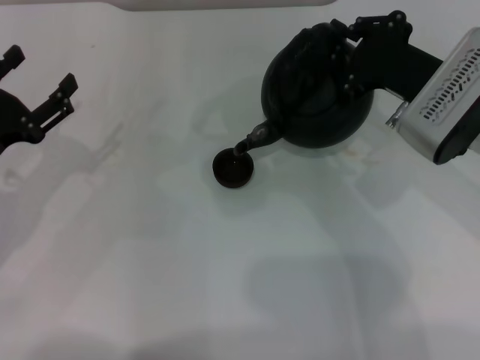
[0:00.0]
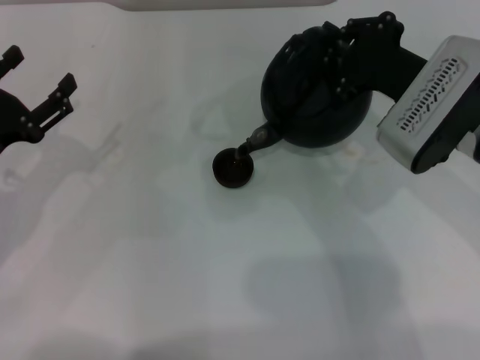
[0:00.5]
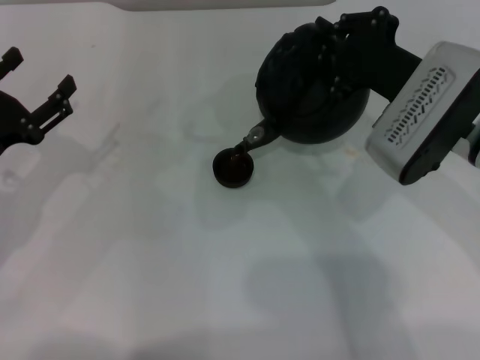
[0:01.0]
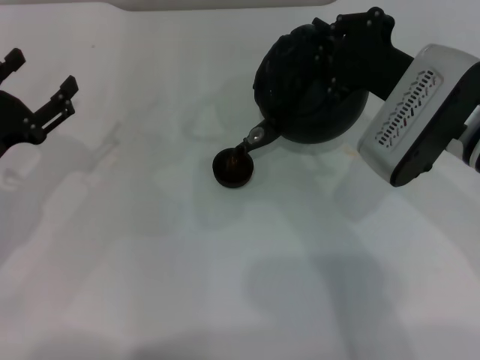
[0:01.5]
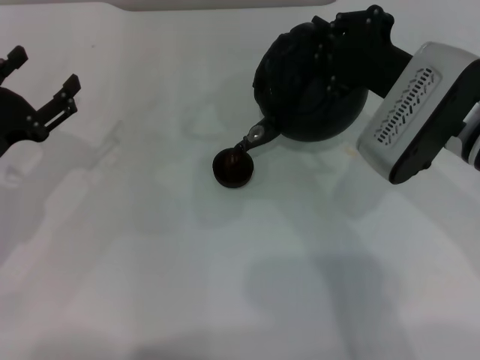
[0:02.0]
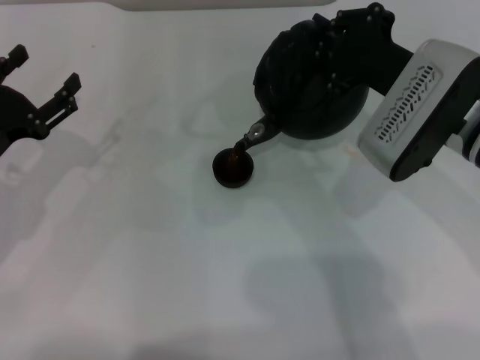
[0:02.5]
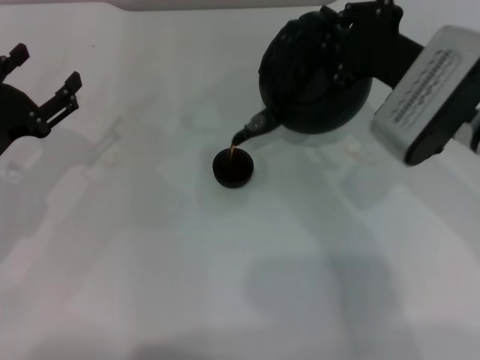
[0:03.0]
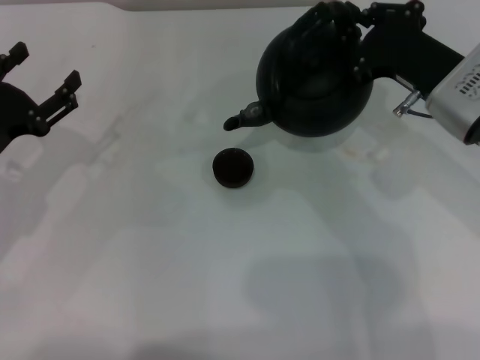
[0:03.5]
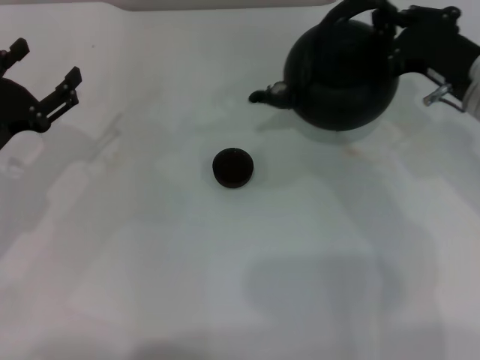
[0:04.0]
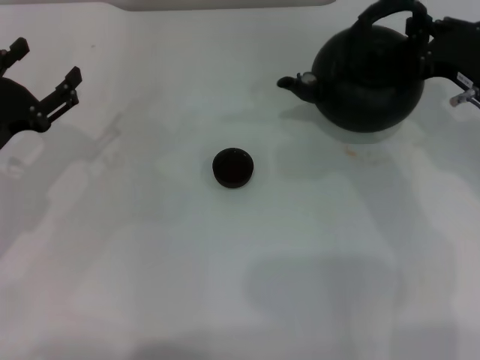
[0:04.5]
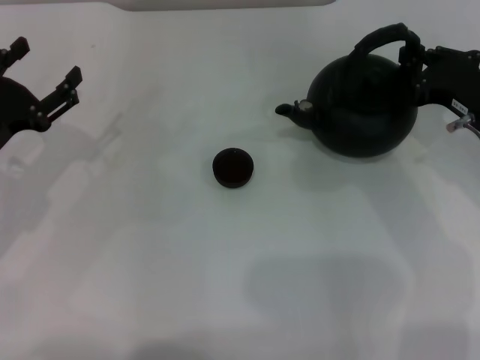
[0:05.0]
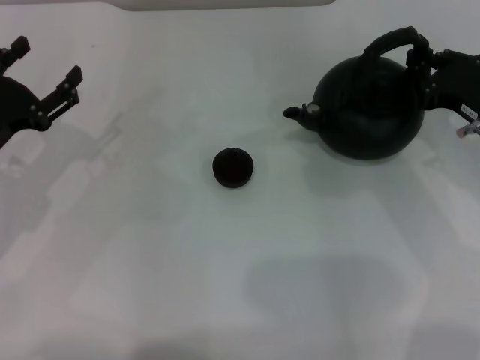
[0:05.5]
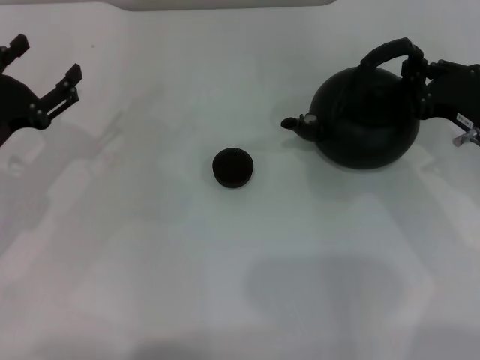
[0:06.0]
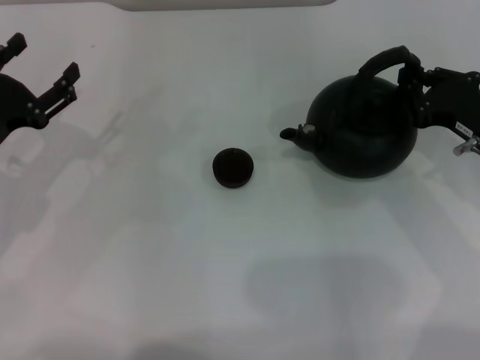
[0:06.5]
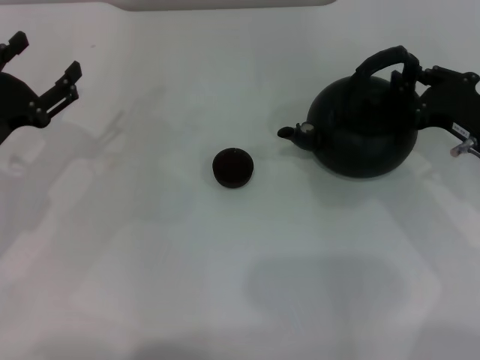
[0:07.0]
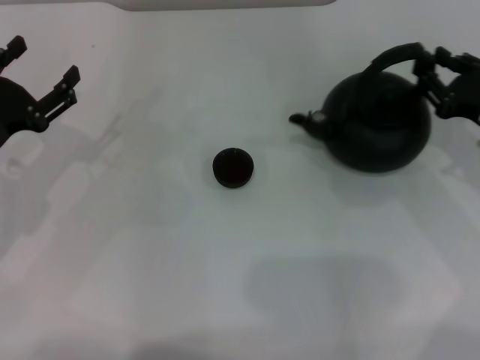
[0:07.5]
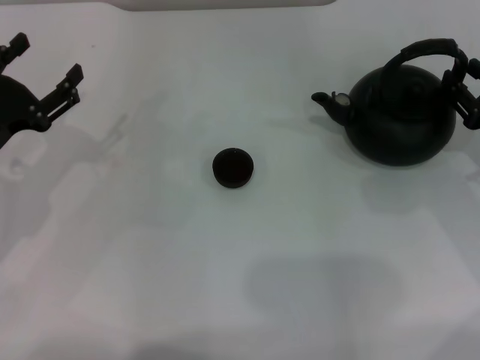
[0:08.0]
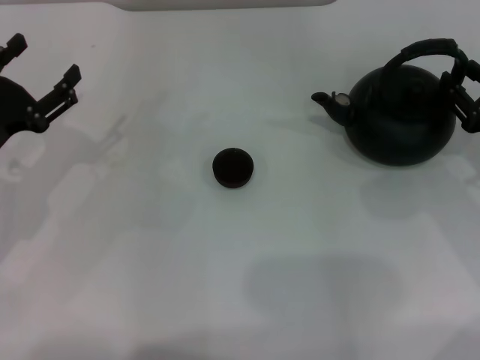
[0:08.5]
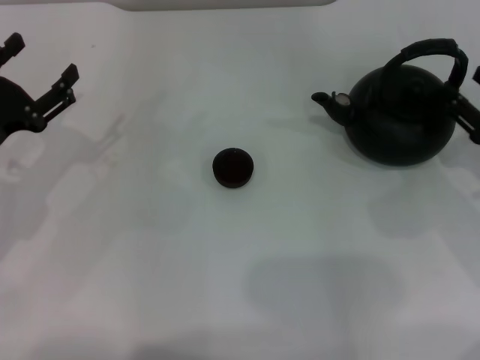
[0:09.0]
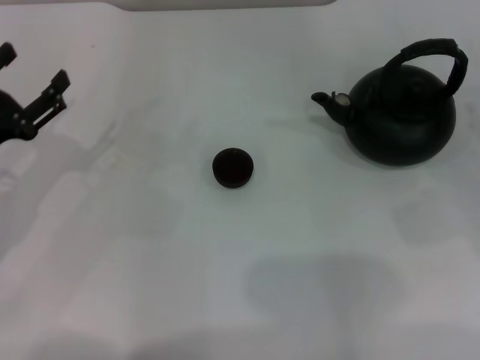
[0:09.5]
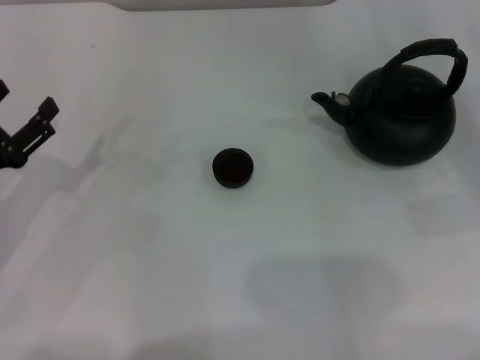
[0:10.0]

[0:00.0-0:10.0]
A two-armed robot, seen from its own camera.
Task of the whole recording: Grasp the handle of the teapot with one hand and pour tea into the teacup.
Step, 0:00.0 to 0:03.5: Pour tea into the teacup with the right gripper.
Step, 0:04.0 to 0:09.0: Put down the teapot with the right gripper.
0:00.0 to 0:02.0: The grippers move only a little.
0:02.0 to 0:04.0: The right gripper moves to the right, about 5 cm.
0:04.0 to 0:06.0: The right gripper ends up about 5 cm from where it was.
0:06.0 to 0:08.0: The right gripper moves to the right, roughly 5 cm, and opens up.
0:08.0 to 0:10.0: The right gripper travels to the right by approximately 5 cm.
